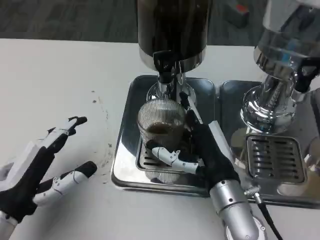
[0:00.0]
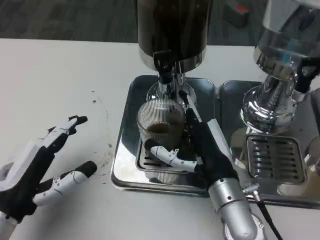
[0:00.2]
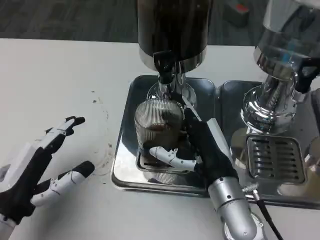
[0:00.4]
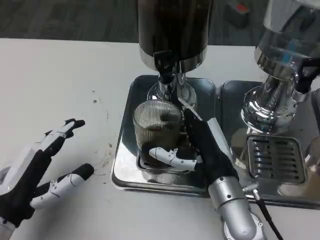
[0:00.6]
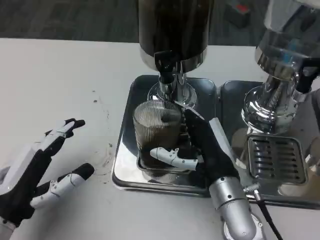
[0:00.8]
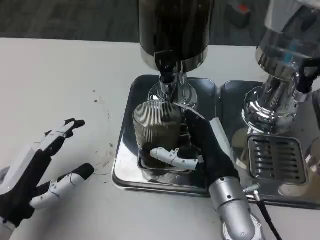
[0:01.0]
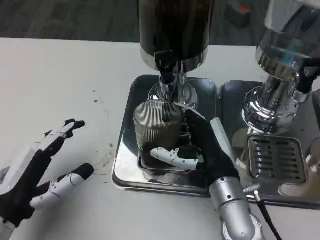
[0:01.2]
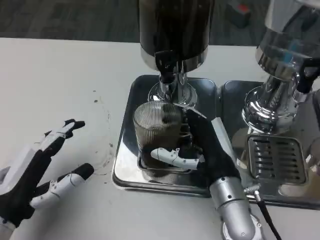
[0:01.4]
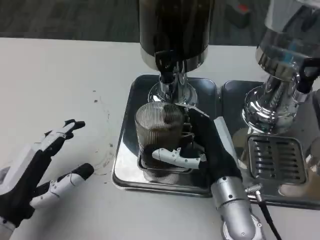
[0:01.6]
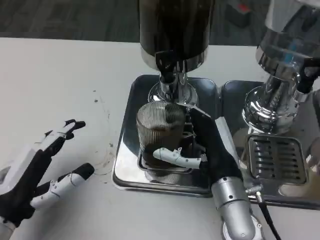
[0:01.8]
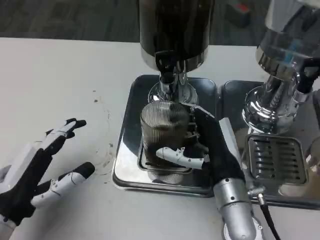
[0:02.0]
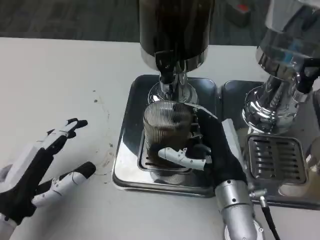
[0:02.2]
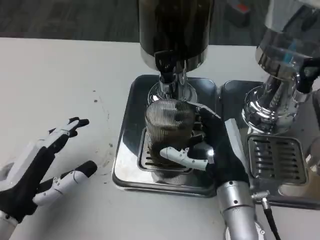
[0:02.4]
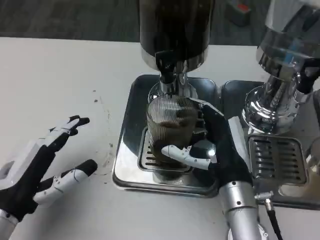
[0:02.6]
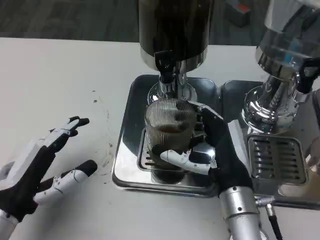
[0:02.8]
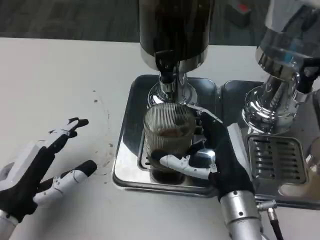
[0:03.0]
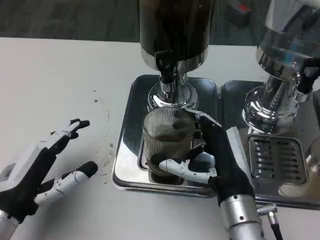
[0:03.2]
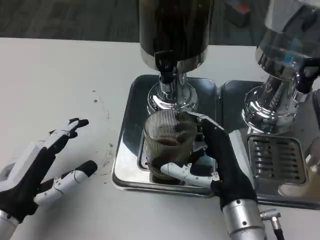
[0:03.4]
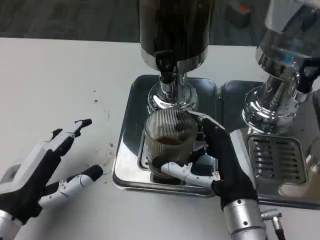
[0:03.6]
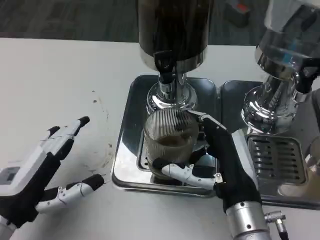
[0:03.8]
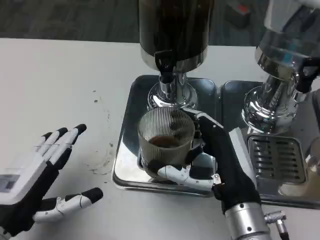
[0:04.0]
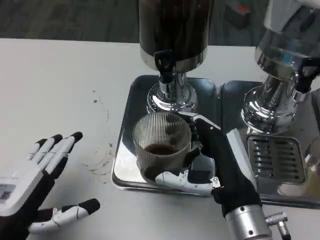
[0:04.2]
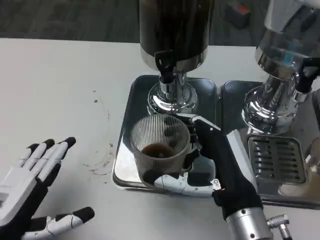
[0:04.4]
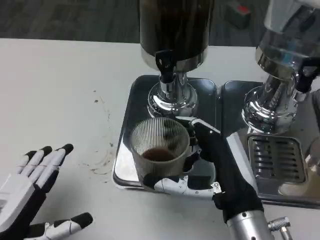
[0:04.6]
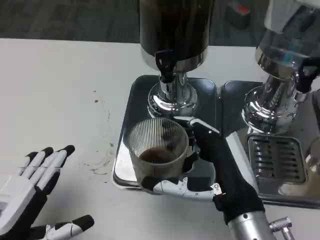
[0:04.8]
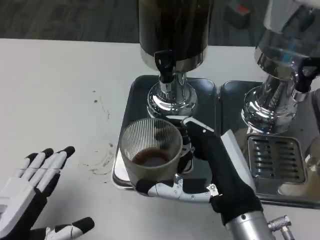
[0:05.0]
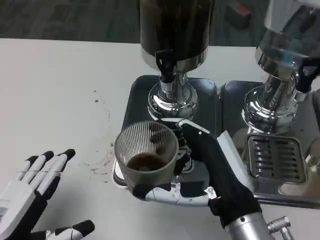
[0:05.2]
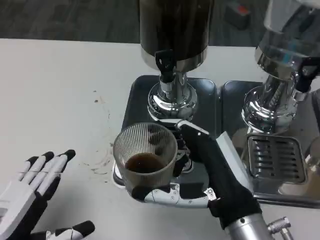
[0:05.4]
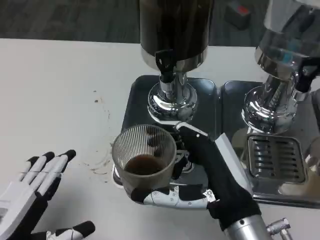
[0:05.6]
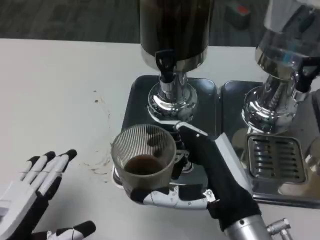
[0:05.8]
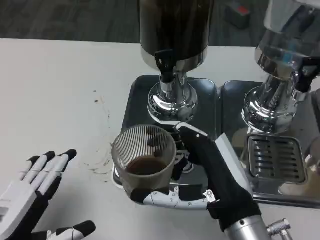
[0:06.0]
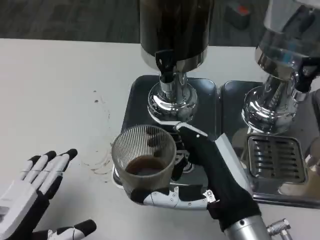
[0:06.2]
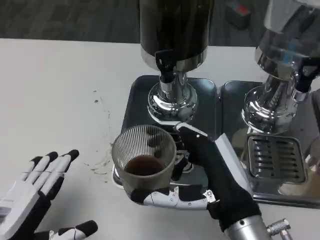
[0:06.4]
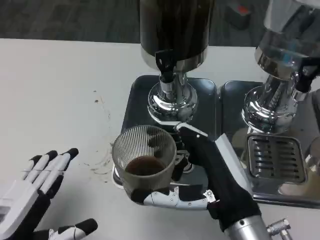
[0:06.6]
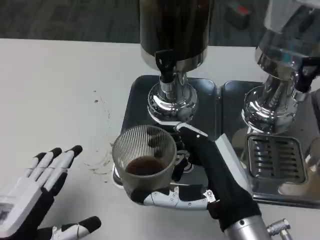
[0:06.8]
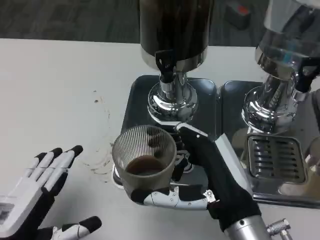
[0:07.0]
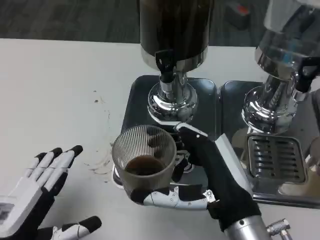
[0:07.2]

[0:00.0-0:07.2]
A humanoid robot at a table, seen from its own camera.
Task of the whole recording: Grasp the cup under the faucet to collect the drink, then remove the cup.
0:00.0 to 0:02.8: The hands make only small movements.
0:02.8 to 0:04.4: The left hand is displaced backward by approximately 5 cm.
0:05.8 to 0:07.2: Both hands stay put.
